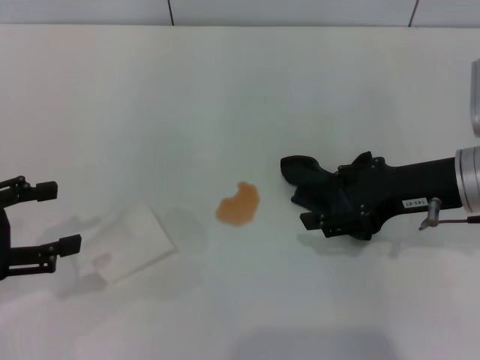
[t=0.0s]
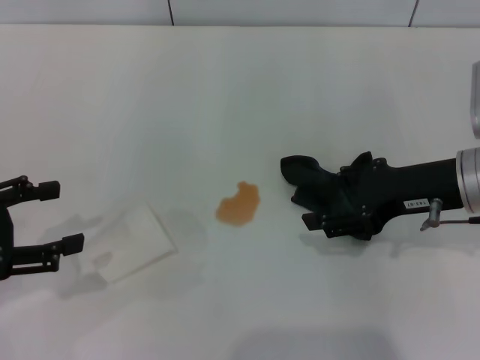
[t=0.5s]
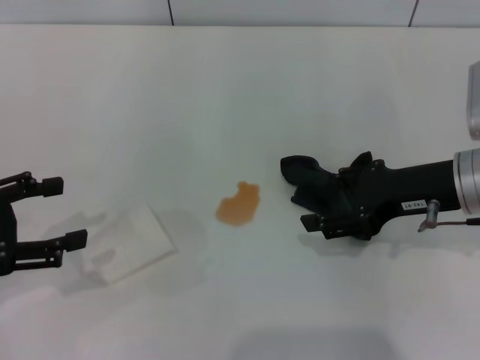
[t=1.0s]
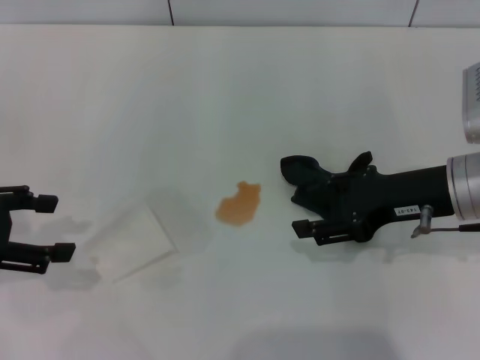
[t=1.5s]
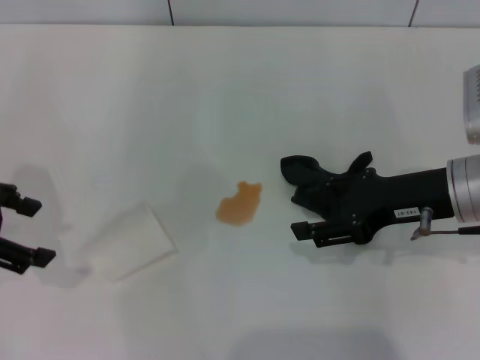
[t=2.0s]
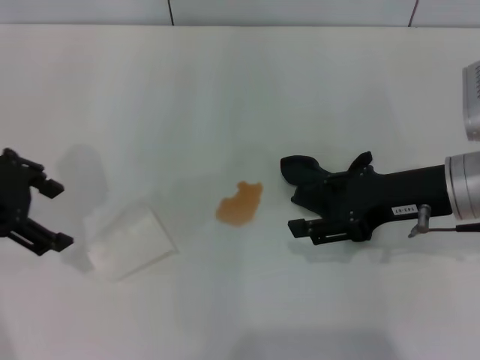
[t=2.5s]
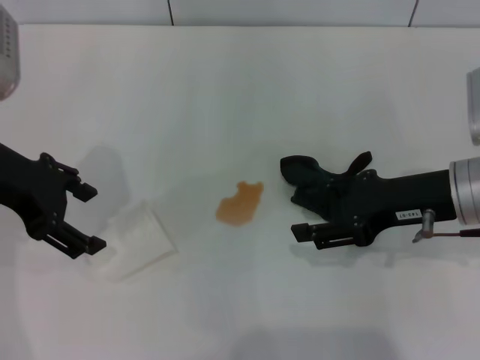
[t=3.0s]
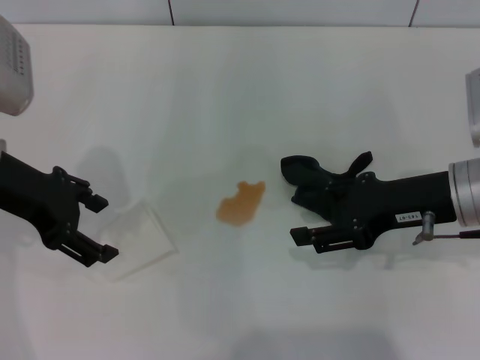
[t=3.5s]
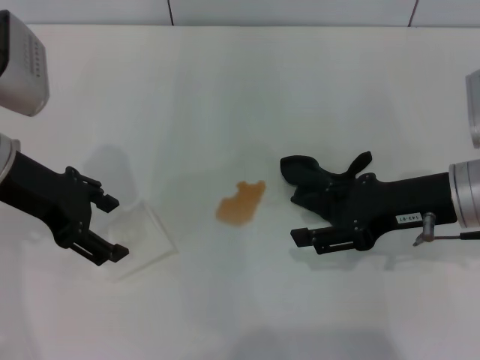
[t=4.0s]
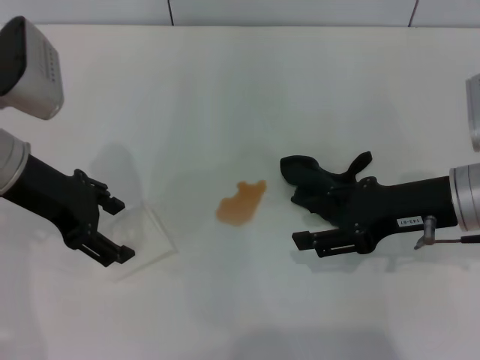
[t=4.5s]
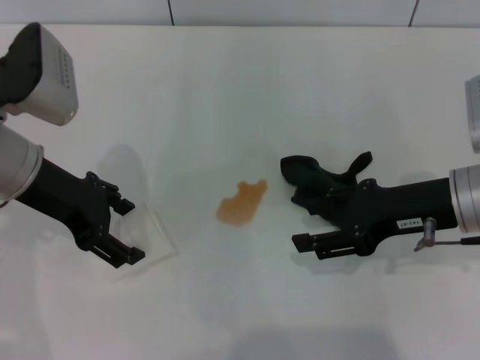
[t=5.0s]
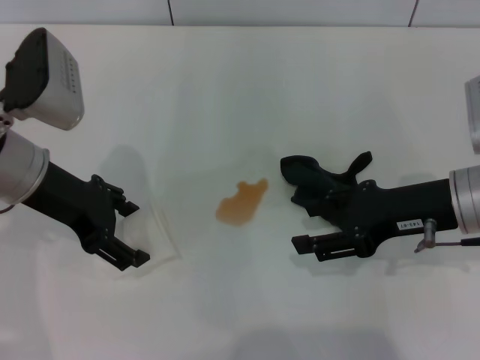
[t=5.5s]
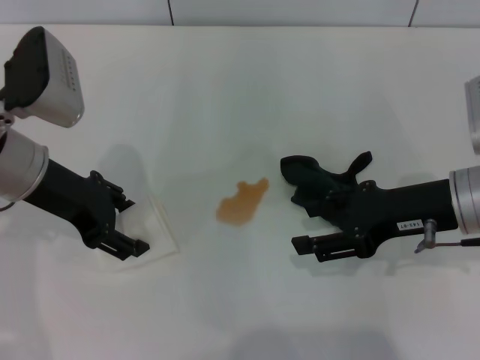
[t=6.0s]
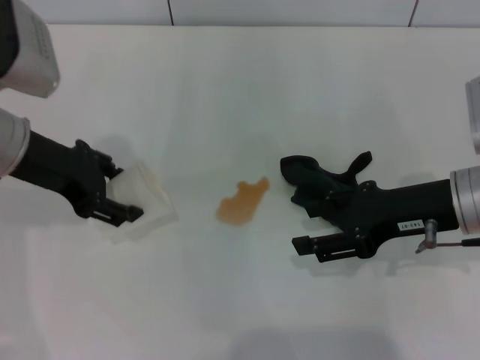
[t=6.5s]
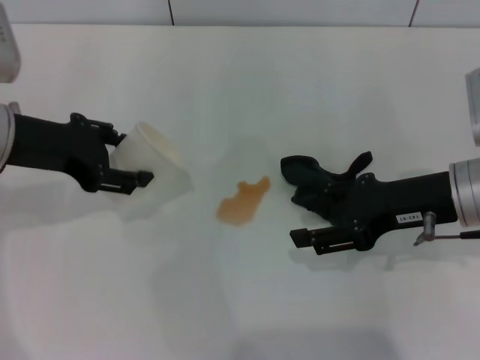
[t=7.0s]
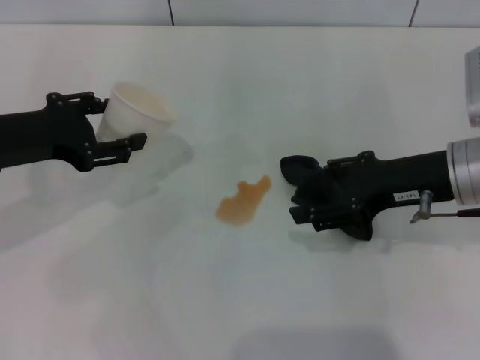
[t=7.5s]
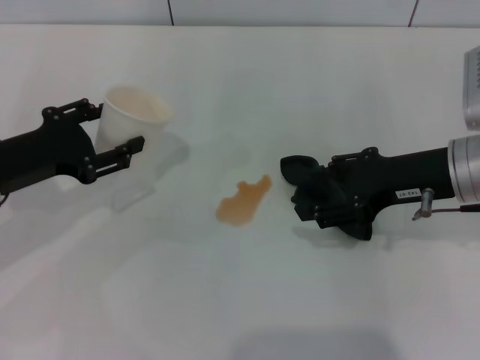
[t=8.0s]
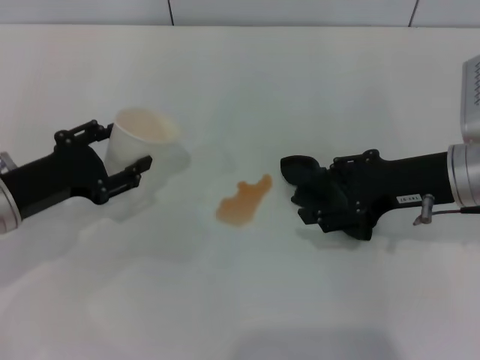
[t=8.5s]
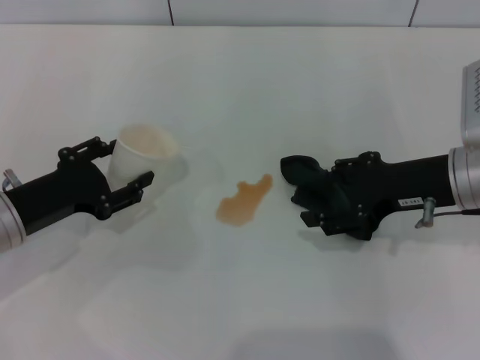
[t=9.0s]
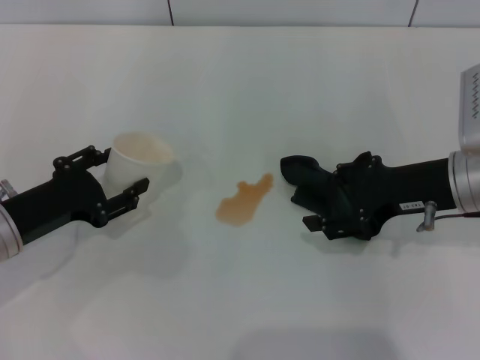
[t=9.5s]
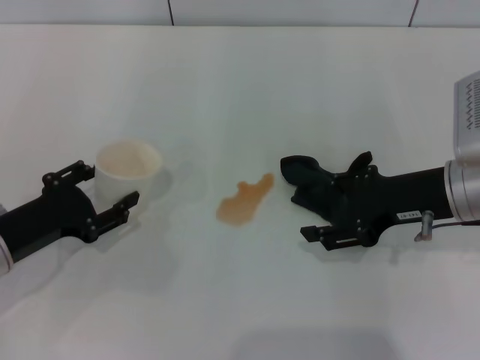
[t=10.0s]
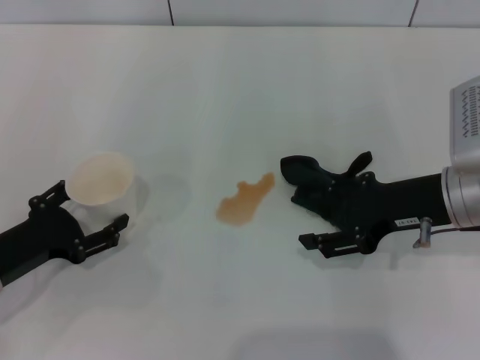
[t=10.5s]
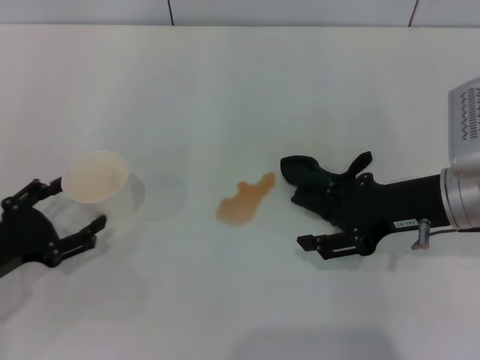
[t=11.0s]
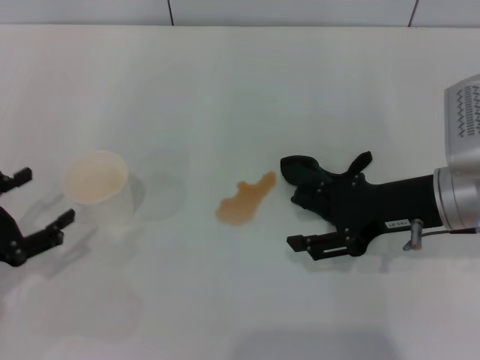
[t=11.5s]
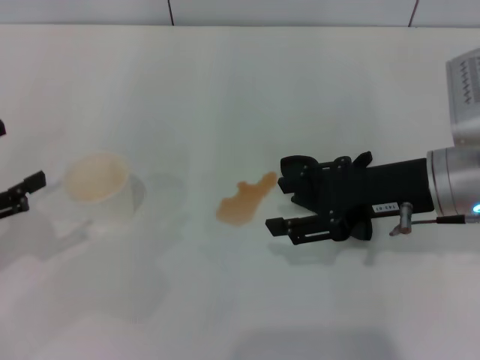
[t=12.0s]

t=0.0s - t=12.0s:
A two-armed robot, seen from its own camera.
Step, t=0.0s - t=5.5s: Grasp the paper cup with the left gripper.
Step, t=6.0s - t=11.0s: Stand the paper cup upright with the left gripper.
t=0.0s - t=2.0s: The left gripper travels forward and upward by approximately 10 cm.
t=2.0s - t=4.0s: The left gripper travels to the right by about 10 cm.
t=4.0s - t=6.0s: The grippers make only small movements.
t=6.0s - t=8.0s: The left gripper is displaced to the left by approximately 5 cm, and closes.
t=8.0s - t=10.0s: The left gripper shifts some 5 cm downward.
t=10.0s - t=12.0s: The left gripper is displaced upward and to the left by about 10 cm, and opens.

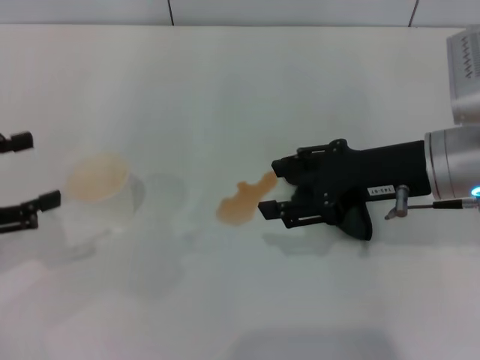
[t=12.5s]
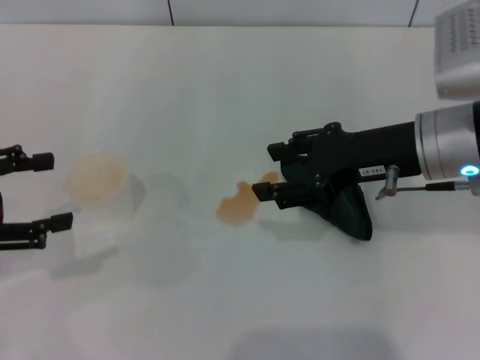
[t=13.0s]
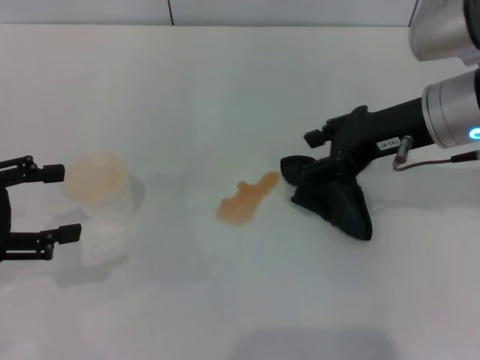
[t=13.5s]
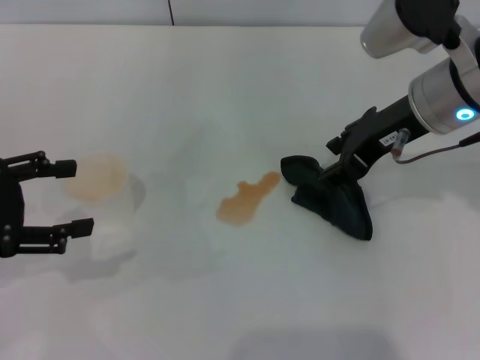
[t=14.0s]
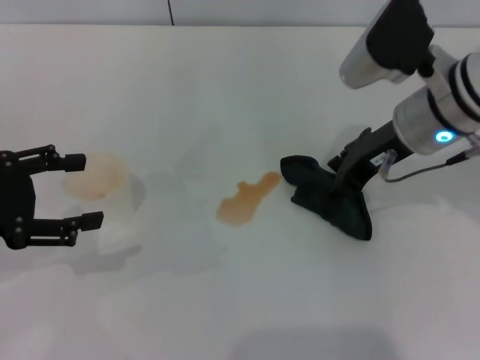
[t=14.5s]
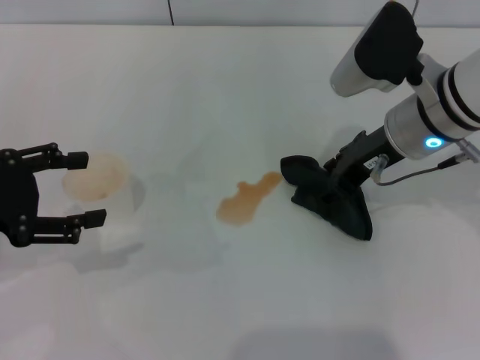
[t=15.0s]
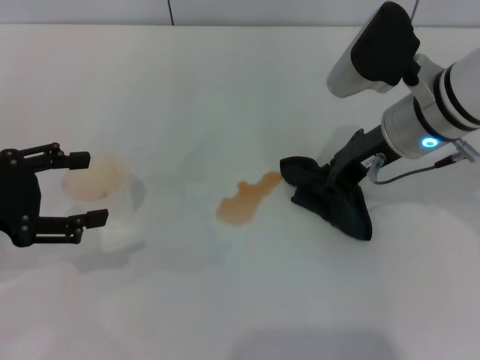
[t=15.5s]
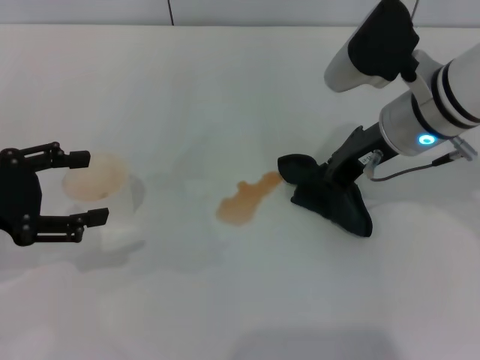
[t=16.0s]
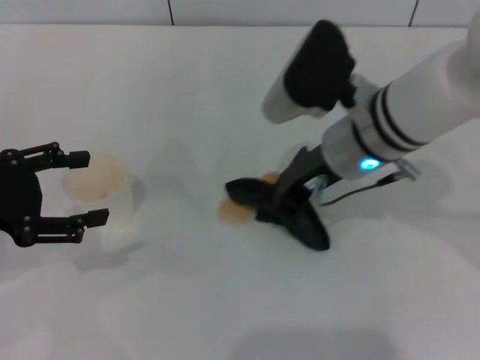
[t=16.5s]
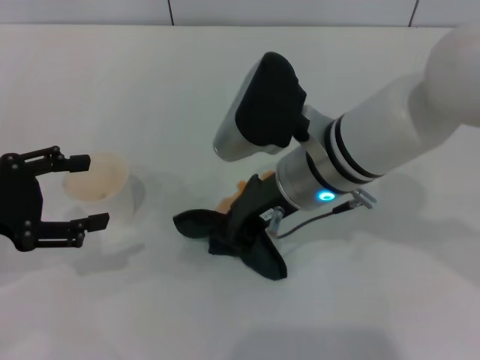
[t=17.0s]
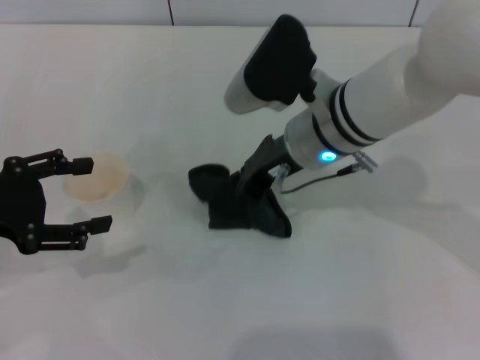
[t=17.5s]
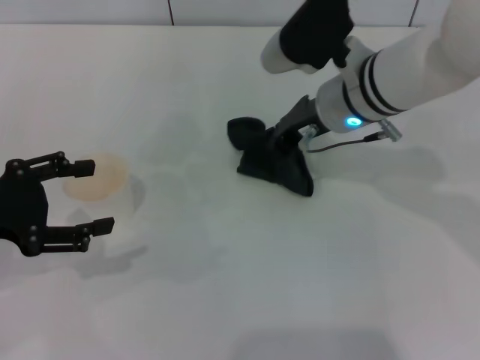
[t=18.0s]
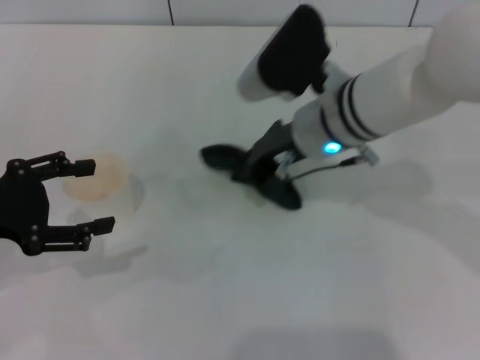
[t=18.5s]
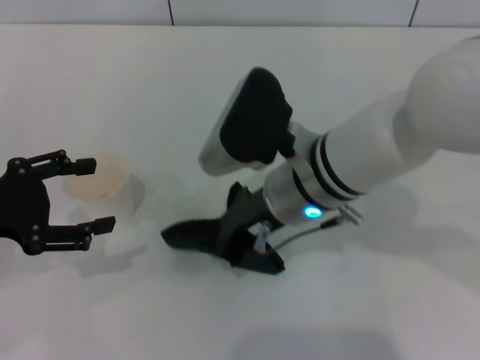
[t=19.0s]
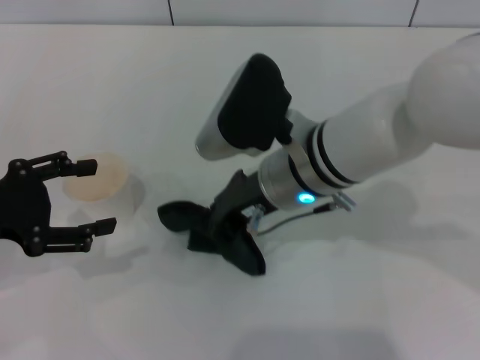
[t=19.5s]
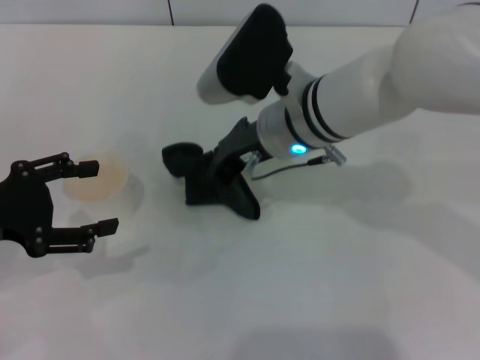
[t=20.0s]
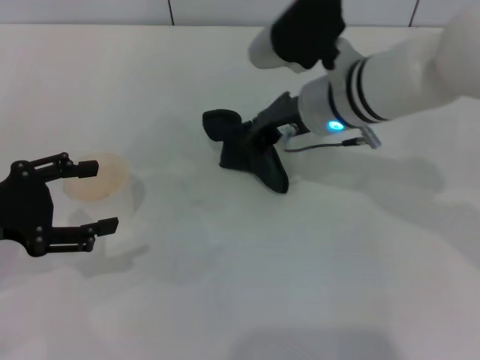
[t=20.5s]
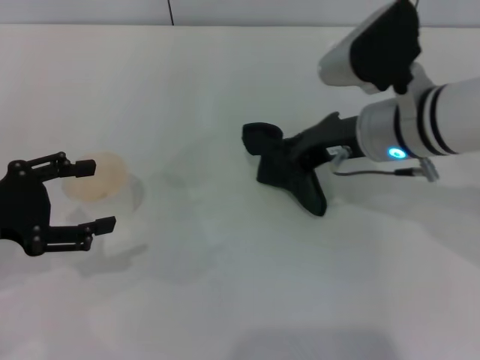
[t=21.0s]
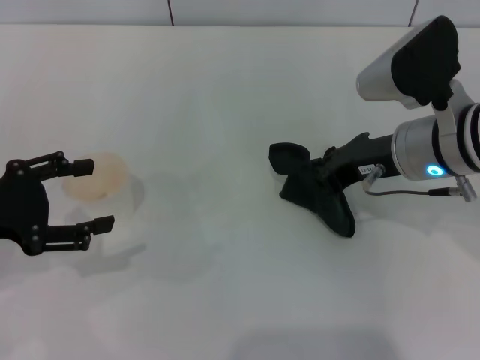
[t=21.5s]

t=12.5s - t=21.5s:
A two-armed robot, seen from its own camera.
Step, t=12.5s - t=15.5s: Grasp the rag with the right gripper.
Step, t=16.0s - t=20.5s: Wipe the stains off the table with the right gripper.
t=12.5s - t=14.5s: The right gripper travels forward by about 5 cm.
t=14.5s - t=17.0s: The right gripper heads to the left, covering some 10 cm, and closes.
t=17.0s - t=19.5s: The right gripper goes forward and returns, approximately 5 cm each way.
t=19.5s - t=21.5s: The right gripper shifts some 10 cm to the right.

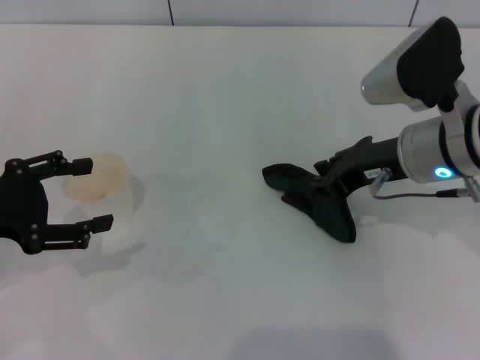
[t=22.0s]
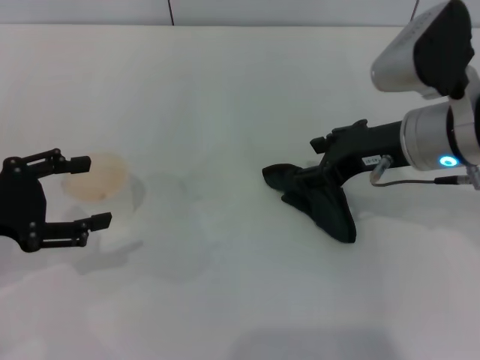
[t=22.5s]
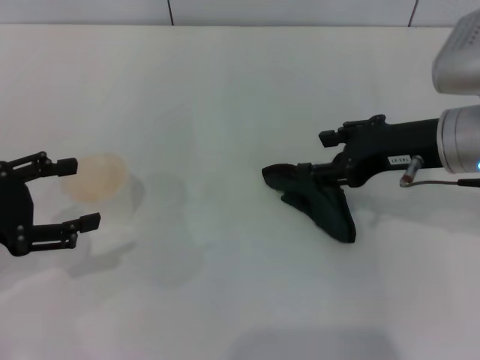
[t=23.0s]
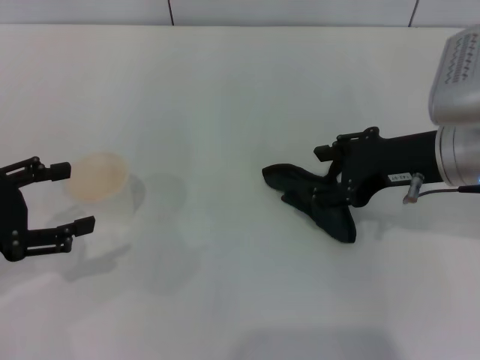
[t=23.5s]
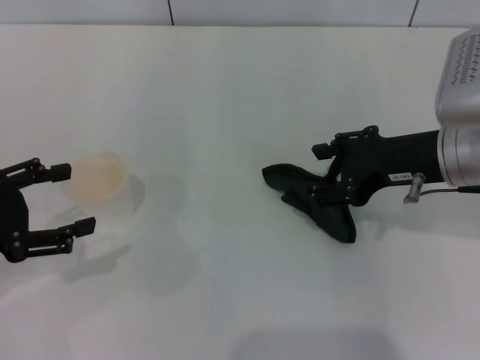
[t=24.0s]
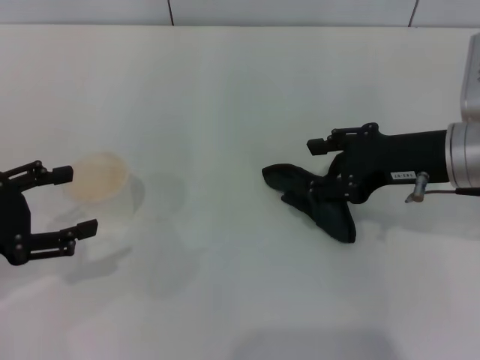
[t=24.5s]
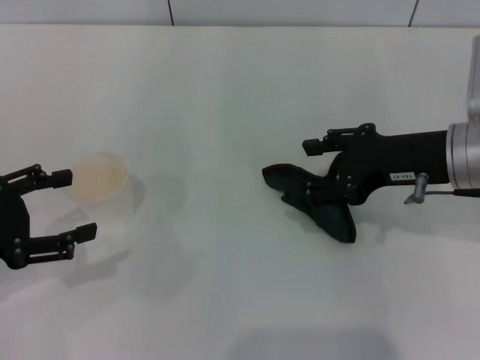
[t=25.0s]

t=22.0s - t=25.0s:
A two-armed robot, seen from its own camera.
t=22.0s - t=23.5s: The right gripper opens up.
t=23.5s - t=25.0s: The grippers stay close to where they were, moving slightly.

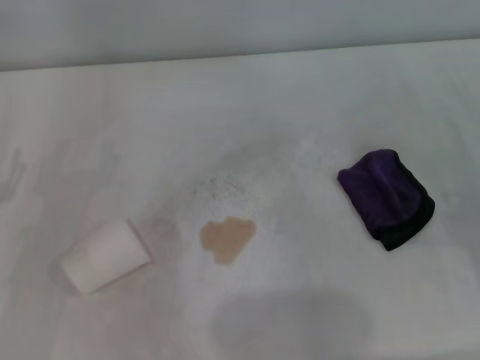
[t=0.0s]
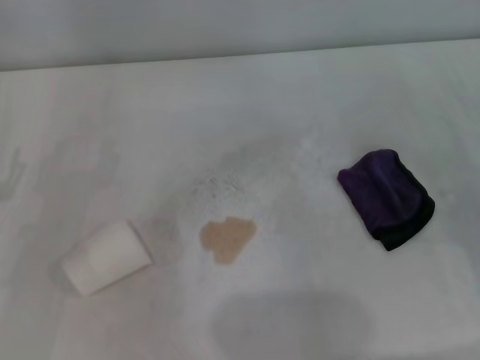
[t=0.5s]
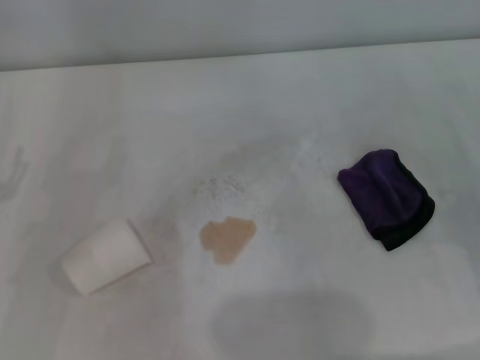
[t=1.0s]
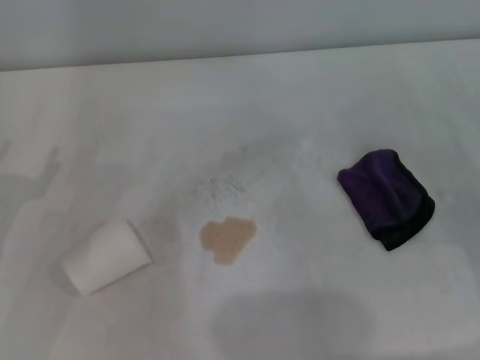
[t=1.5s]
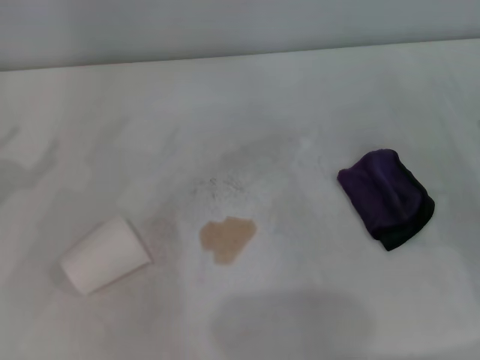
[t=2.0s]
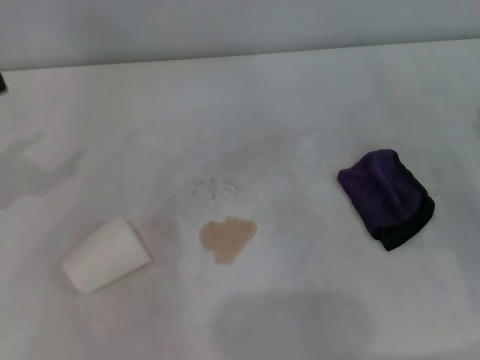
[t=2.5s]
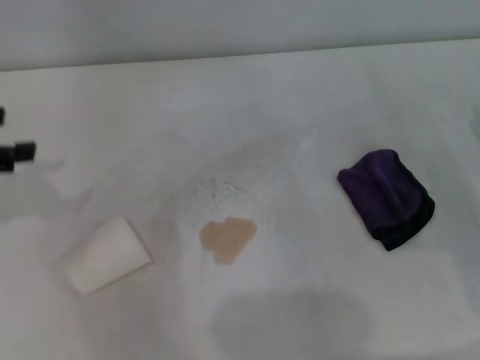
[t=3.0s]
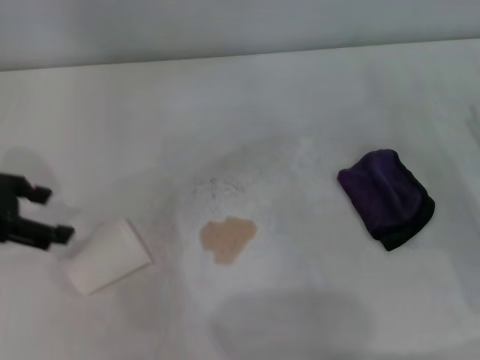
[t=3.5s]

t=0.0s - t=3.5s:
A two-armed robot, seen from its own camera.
t=2.0s - t=3.5s: The left gripper travels upward by some 5 cm.
